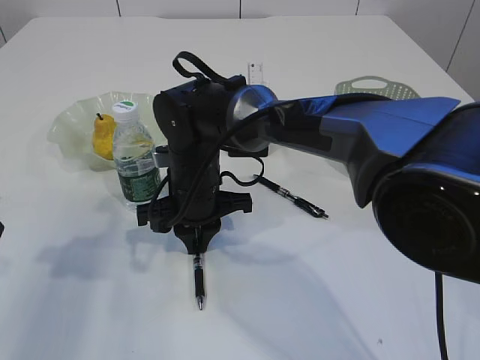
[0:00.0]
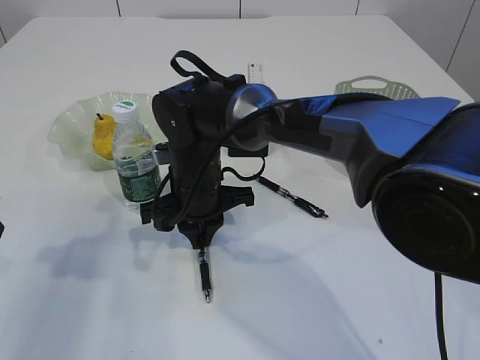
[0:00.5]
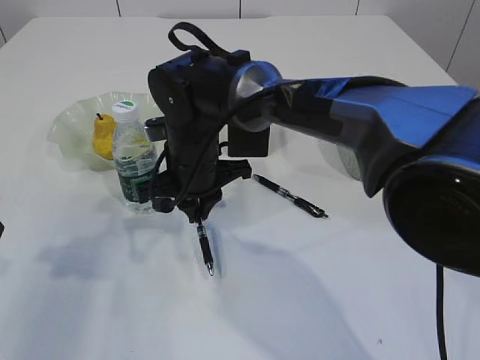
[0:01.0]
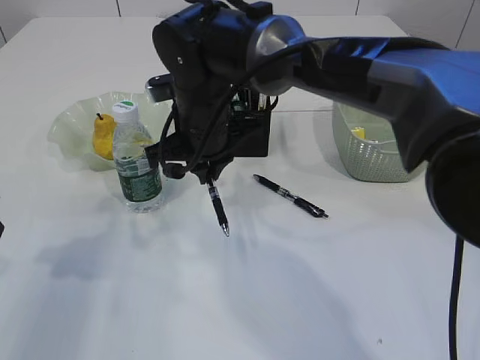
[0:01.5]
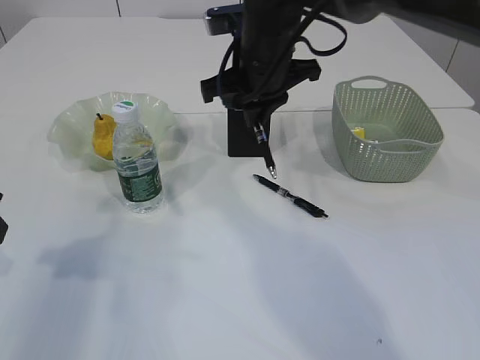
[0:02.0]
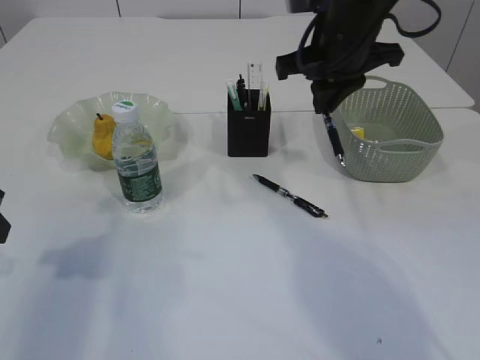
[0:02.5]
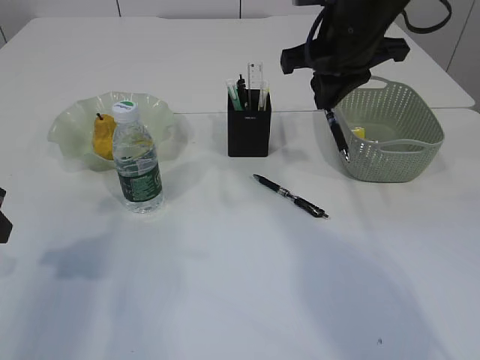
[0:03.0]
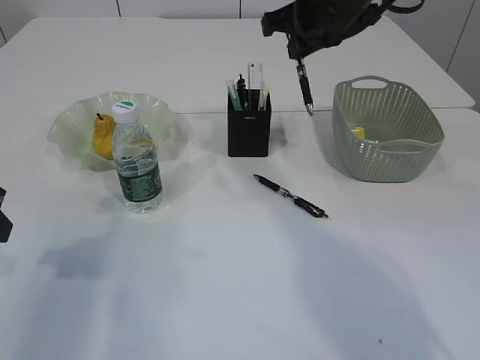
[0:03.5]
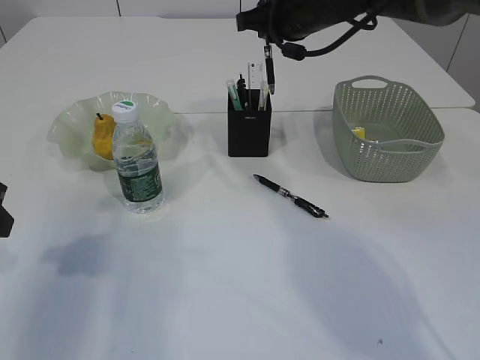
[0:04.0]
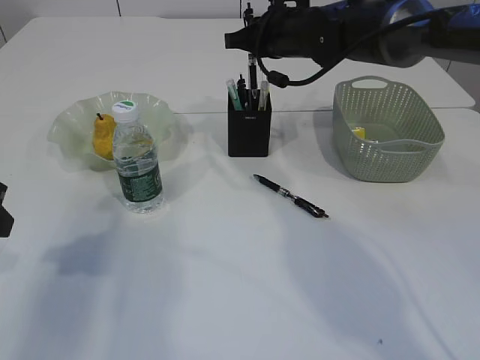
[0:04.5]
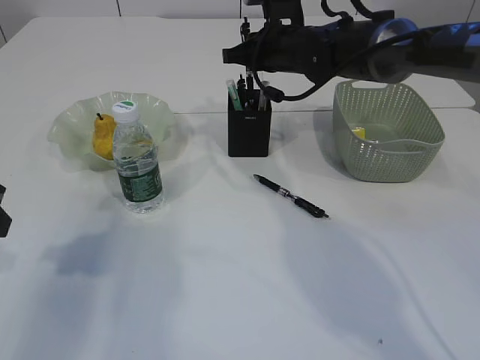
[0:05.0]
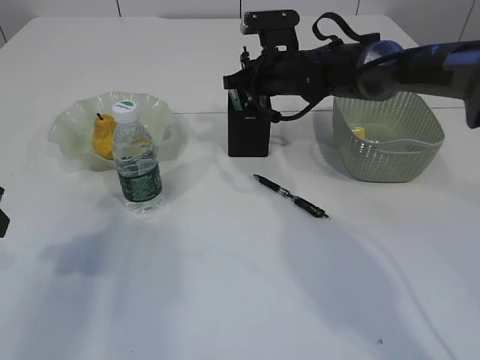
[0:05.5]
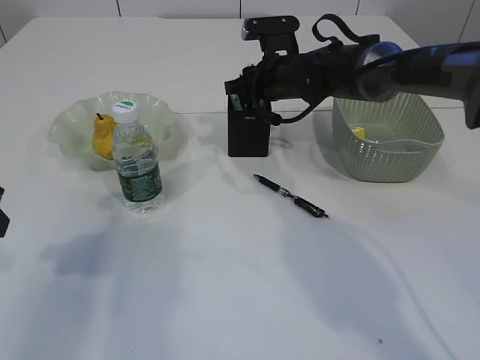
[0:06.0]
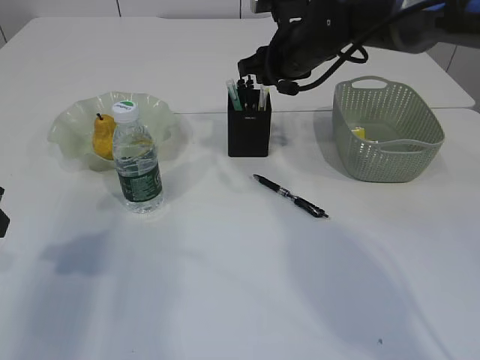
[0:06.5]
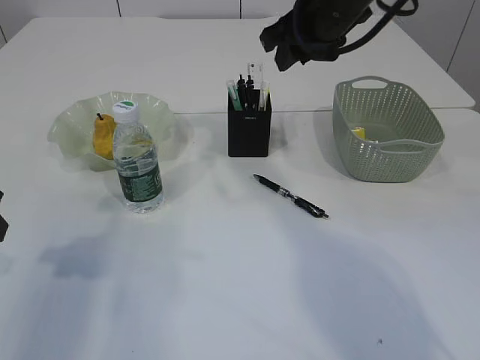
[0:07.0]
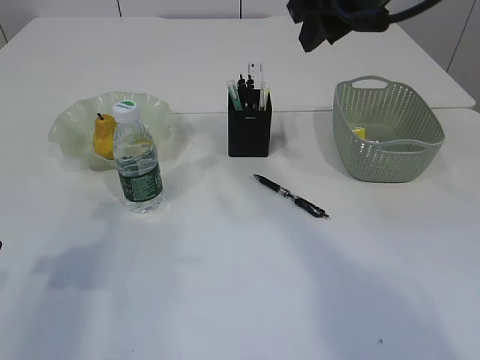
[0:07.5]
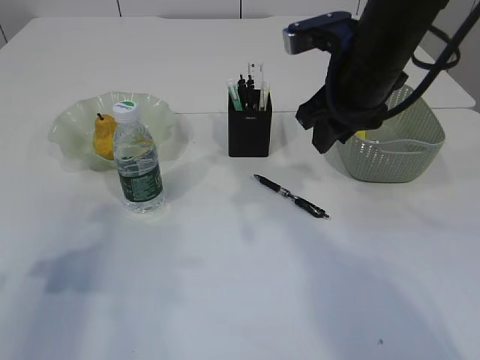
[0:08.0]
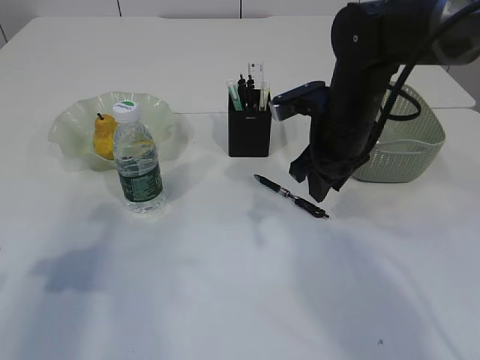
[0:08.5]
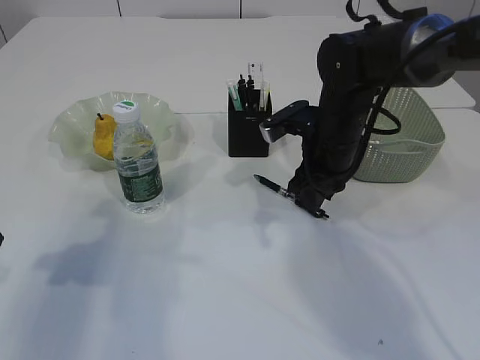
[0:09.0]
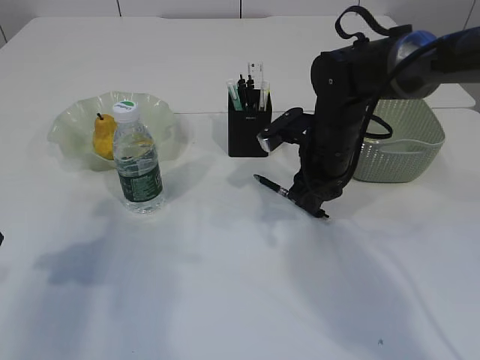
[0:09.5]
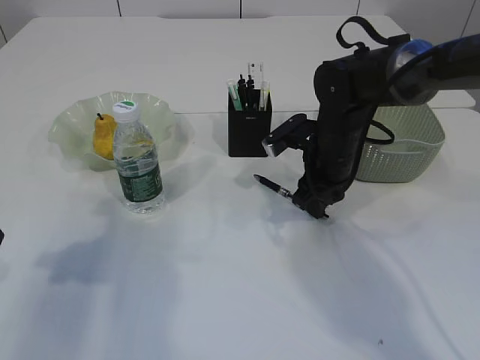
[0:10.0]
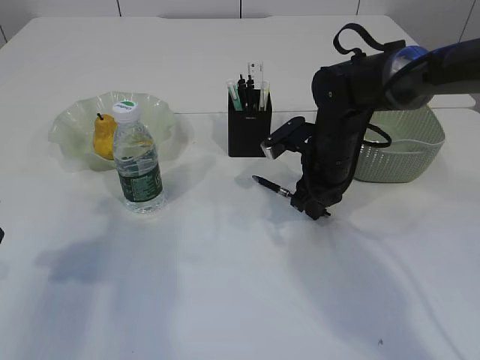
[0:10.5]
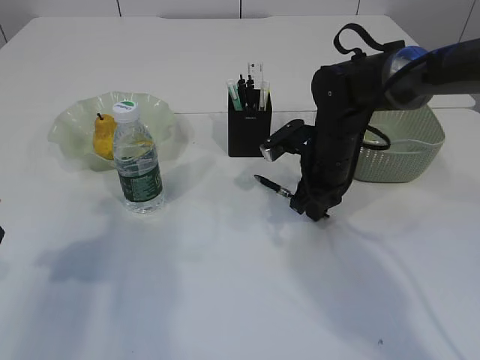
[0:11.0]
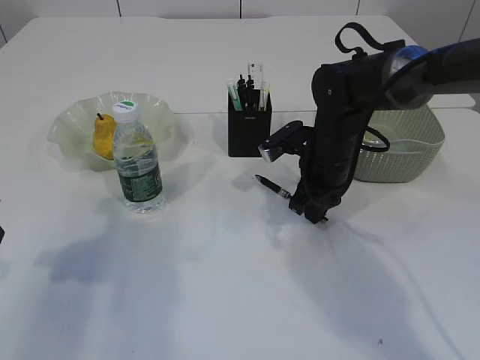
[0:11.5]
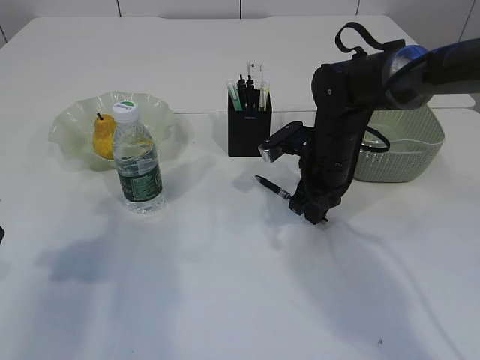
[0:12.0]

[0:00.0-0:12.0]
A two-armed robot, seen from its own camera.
Step, 0:02.0 to 0:06.5: Place the pen into the pen holder.
0:00.0 to 0:02.0: The right gripper moves upward and to the right, approximately 15 cm.
0:02.0 to 0:04.0: The right gripper goes roughly 10 cm to the right and forward.
0:04.0 to 0:06.0: The right gripper goes about 10 cm downward, and opens its fingers.
0:06.0 to 0:08.0: The right gripper is displaced backward and upward by about 20 cm.
0:08.0 to 0:10.0: The right gripper moves downward, approximately 15 cm.
0:10.0 to 0:12.0: The right gripper closes.

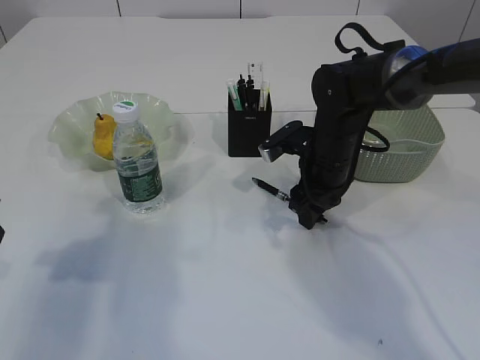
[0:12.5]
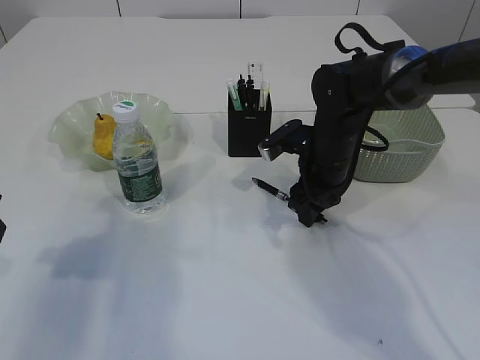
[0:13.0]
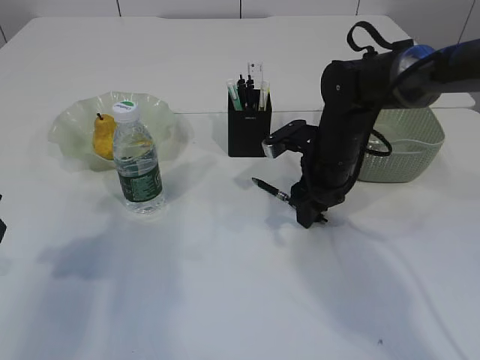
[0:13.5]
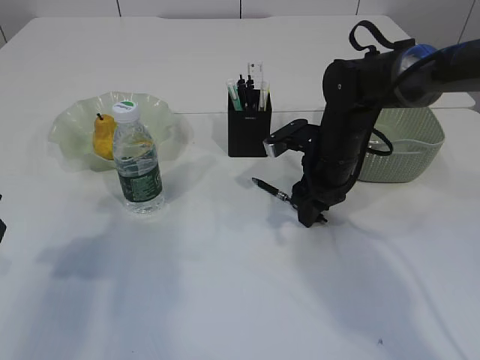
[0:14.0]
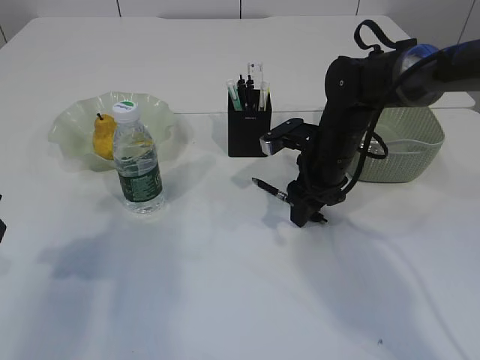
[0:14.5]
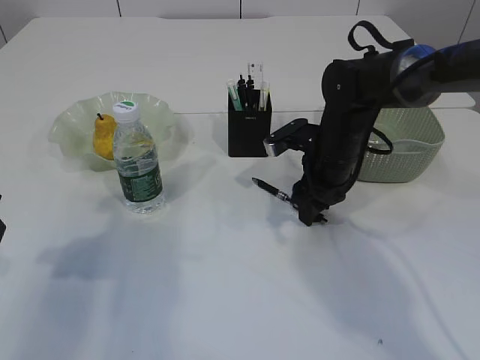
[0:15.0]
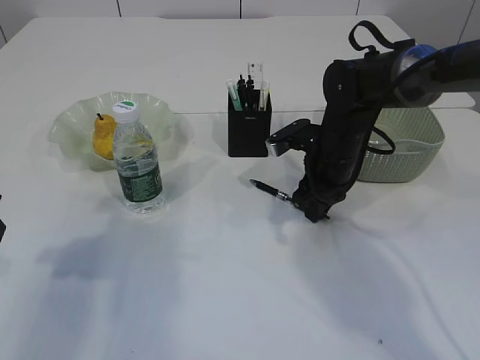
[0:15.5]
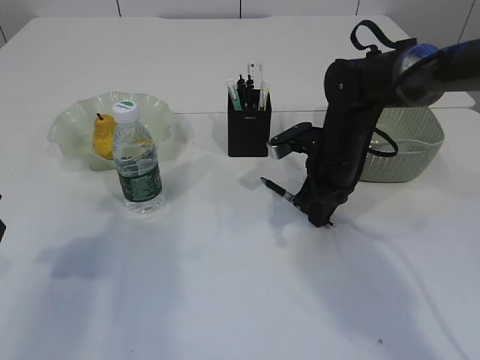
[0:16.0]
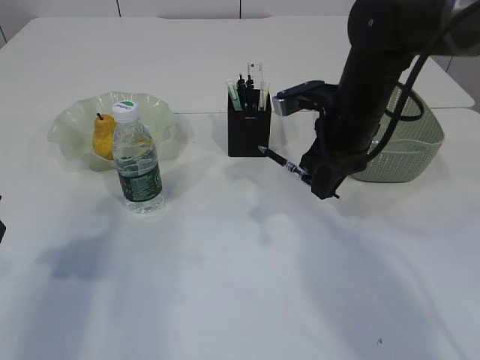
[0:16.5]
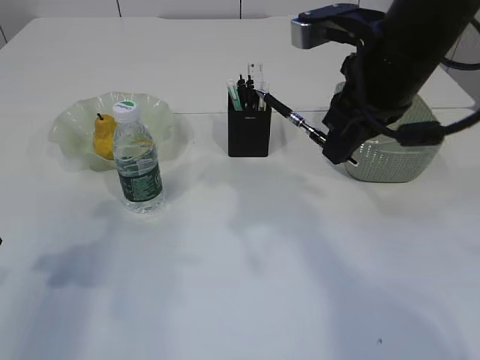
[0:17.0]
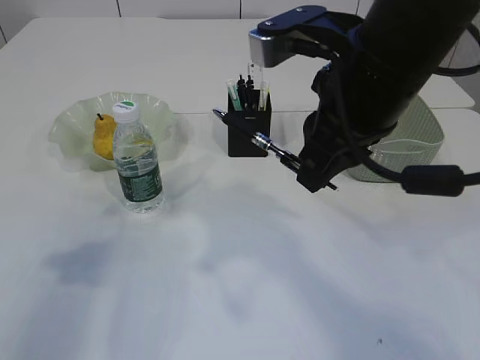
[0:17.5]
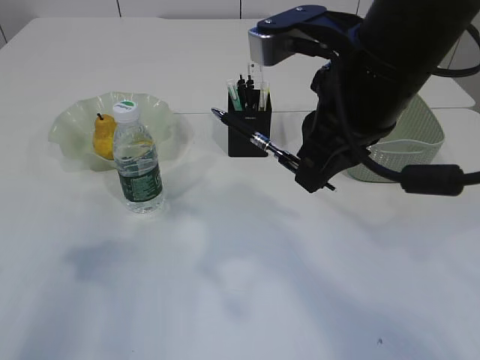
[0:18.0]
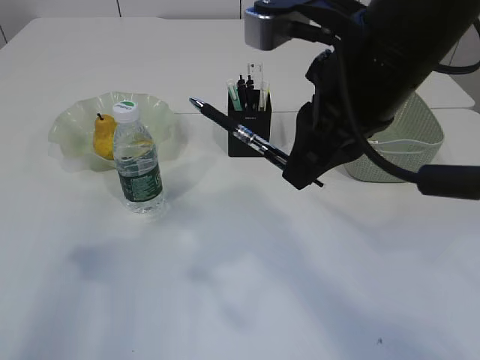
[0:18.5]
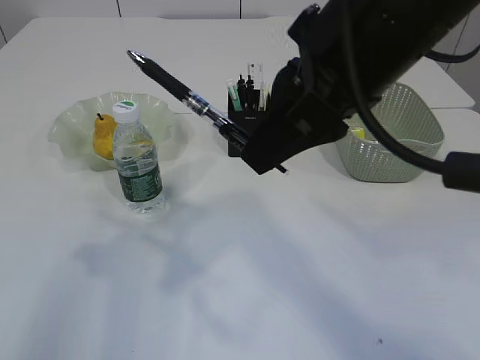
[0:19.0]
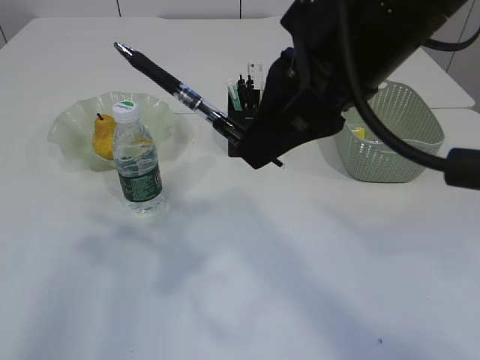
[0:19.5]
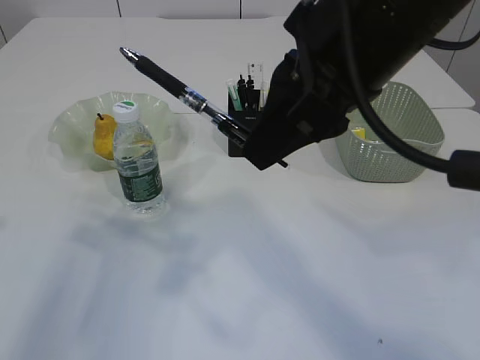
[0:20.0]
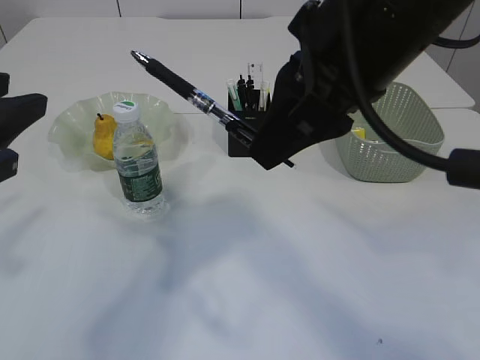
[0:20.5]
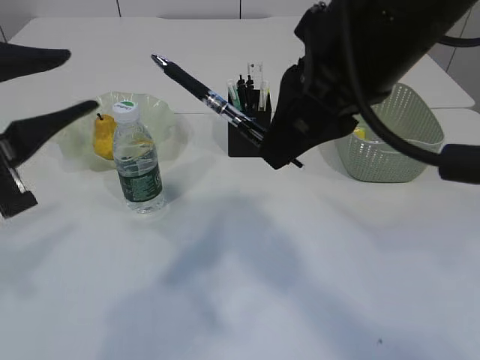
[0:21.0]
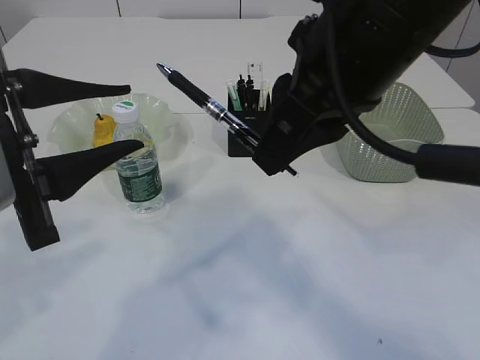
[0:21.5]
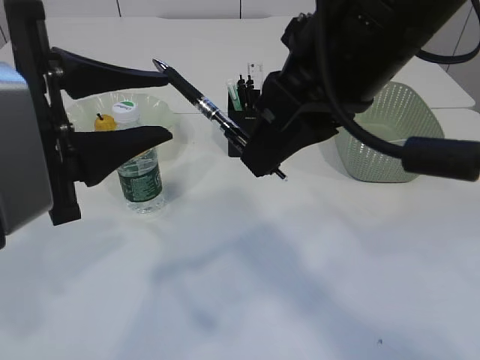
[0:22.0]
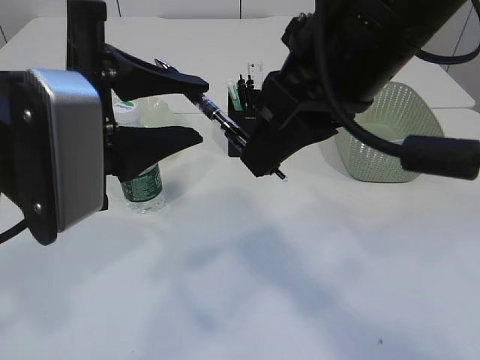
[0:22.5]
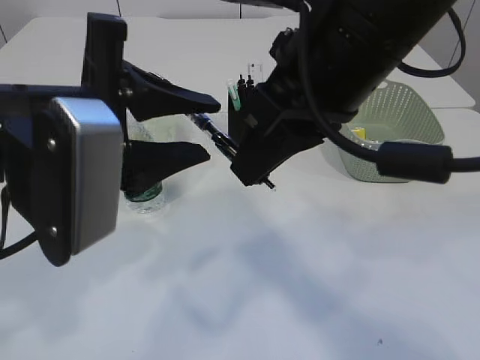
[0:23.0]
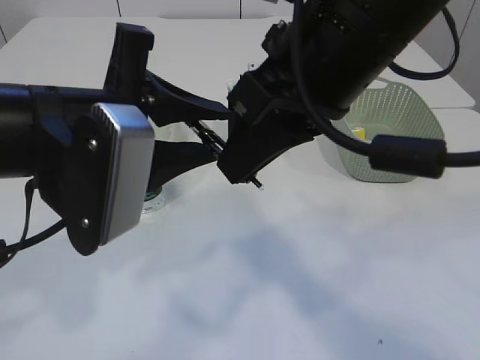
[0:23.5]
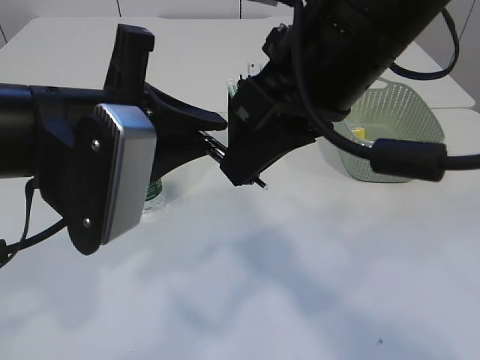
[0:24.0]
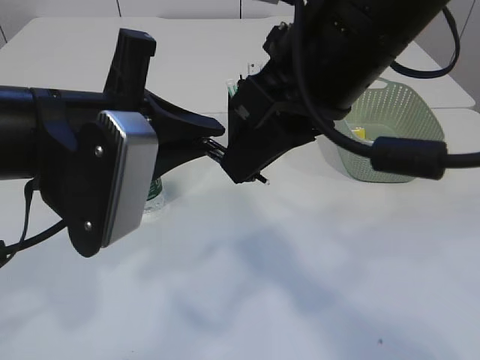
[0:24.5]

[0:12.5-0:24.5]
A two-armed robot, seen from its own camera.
Step, 0:12.5 to 0:17.5: Pick up the pen with right arm.
0:12.5 to 0:14.5: The grippers move only a little.
0:14.5 to 0:16.5: The right gripper goes about 10 cm upward, and closes up.
0:16.5 to 0:18.5: The right gripper heads backward and upward, covering roughly 20 cm, while the left gripper shifts some 5 cm upward.
0:20.5 to 0:22.5: The left gripper is displaced to the right by roughly 10 cm.
0:22.5 to 0:24.5: The left gripper closes up.

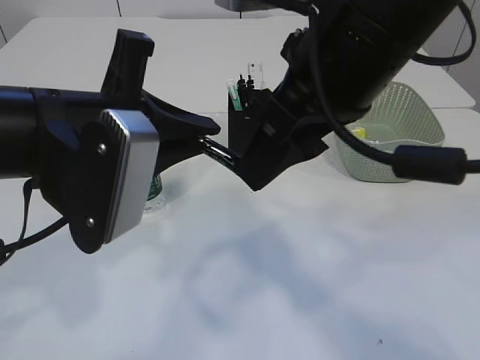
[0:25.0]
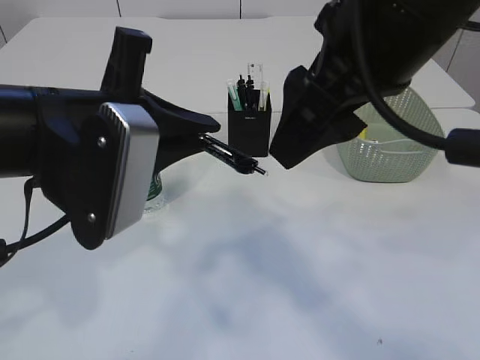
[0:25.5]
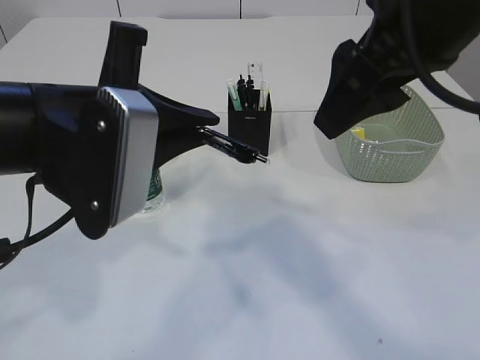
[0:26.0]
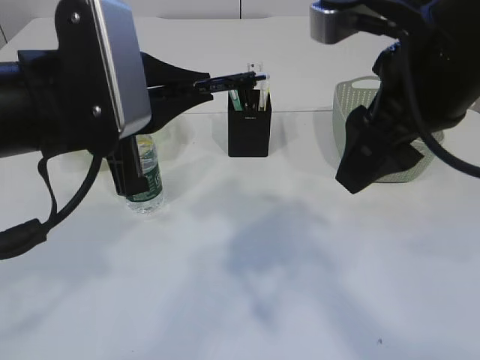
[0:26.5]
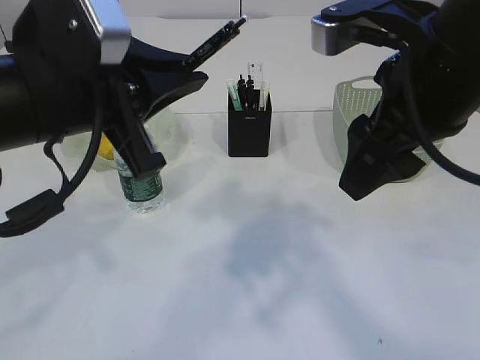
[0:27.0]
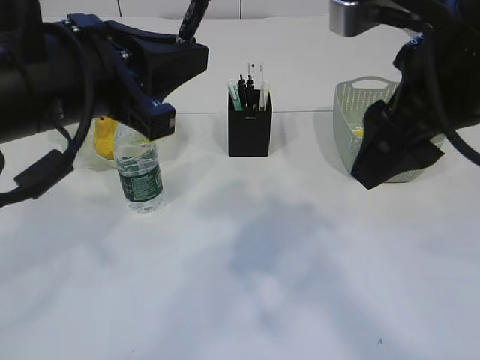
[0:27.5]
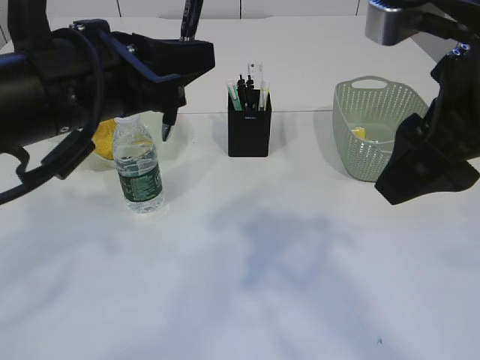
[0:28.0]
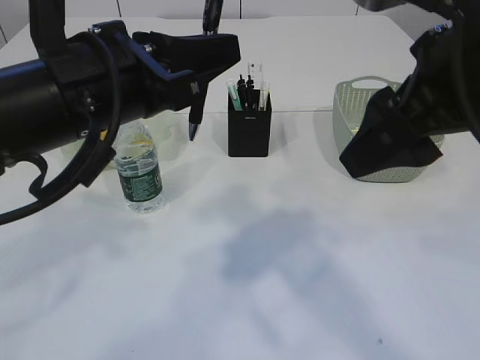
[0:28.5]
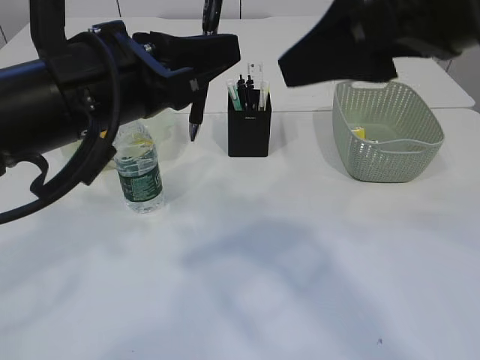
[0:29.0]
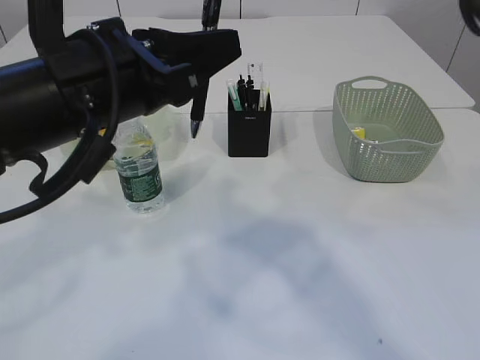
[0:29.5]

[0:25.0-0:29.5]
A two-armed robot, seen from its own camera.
0:25.0 to 0:27.0: The right gripper heads to the right, covering about 5 cm.
0:27.0 to 0:29.5: The right gripper shifts some 10 cm upward.
